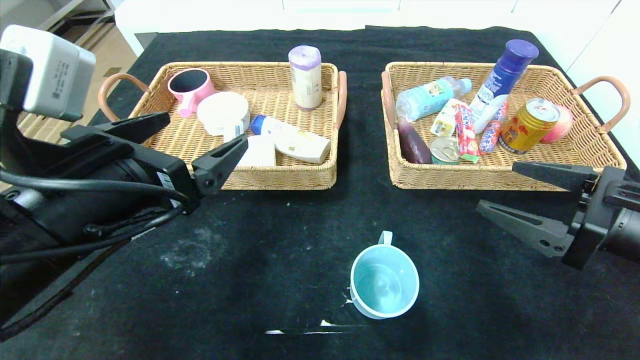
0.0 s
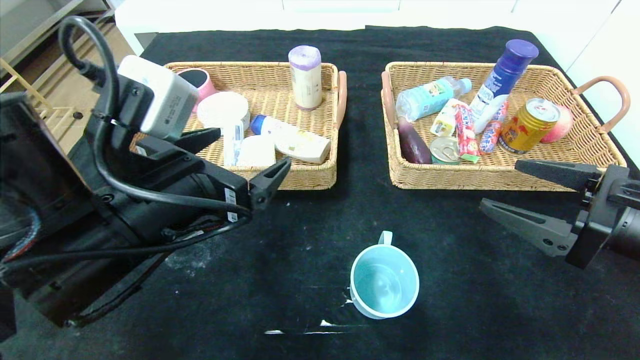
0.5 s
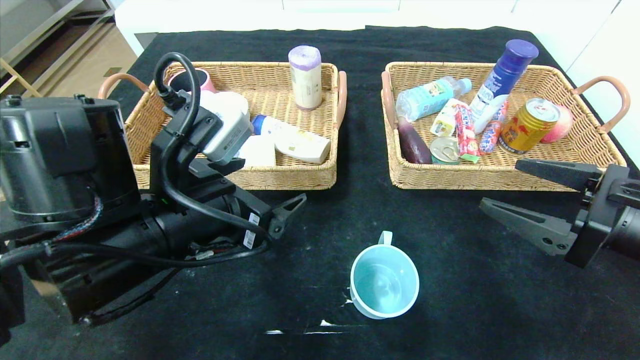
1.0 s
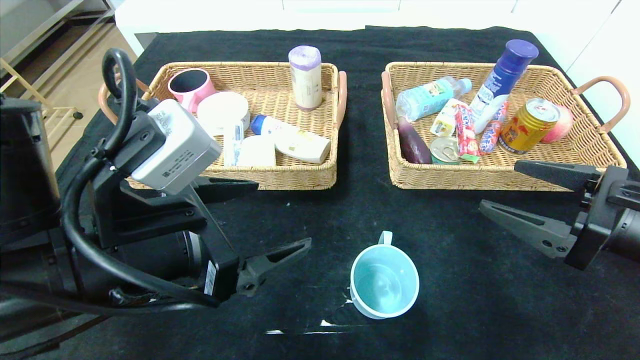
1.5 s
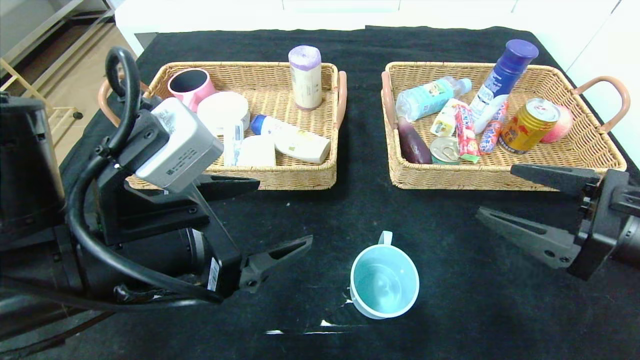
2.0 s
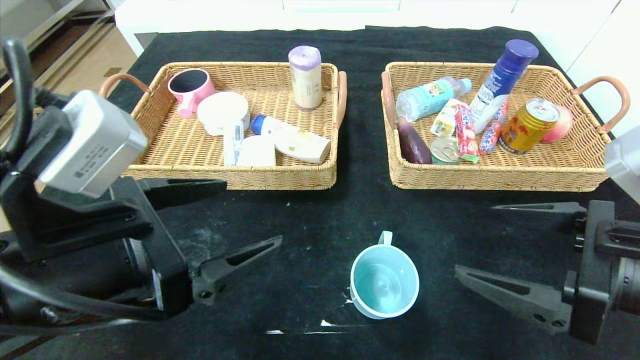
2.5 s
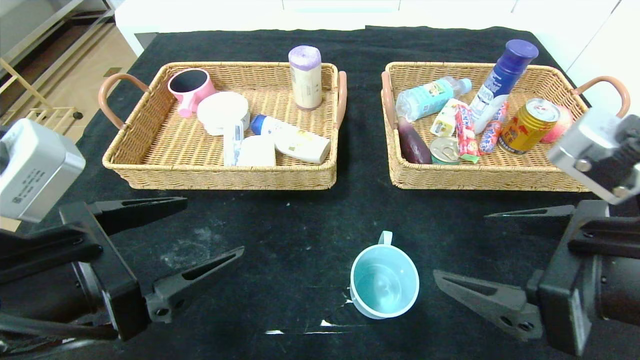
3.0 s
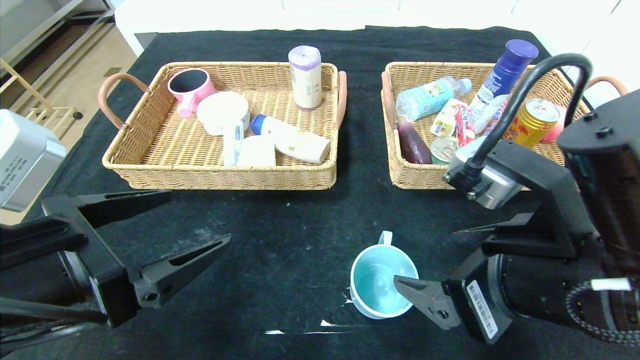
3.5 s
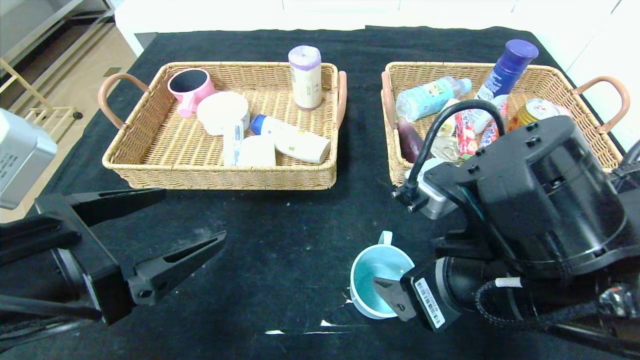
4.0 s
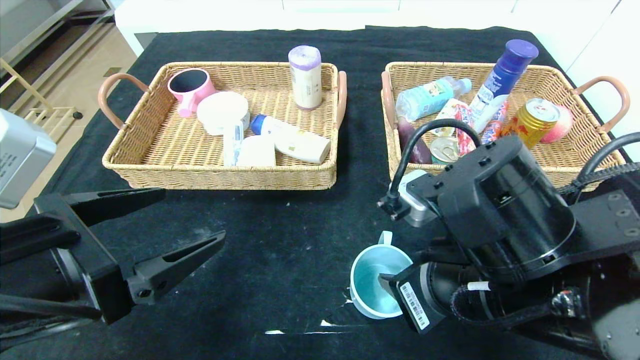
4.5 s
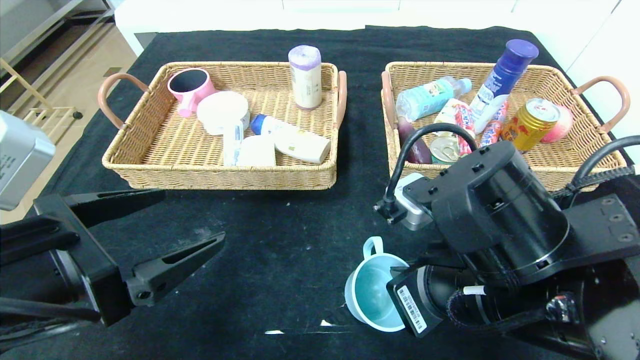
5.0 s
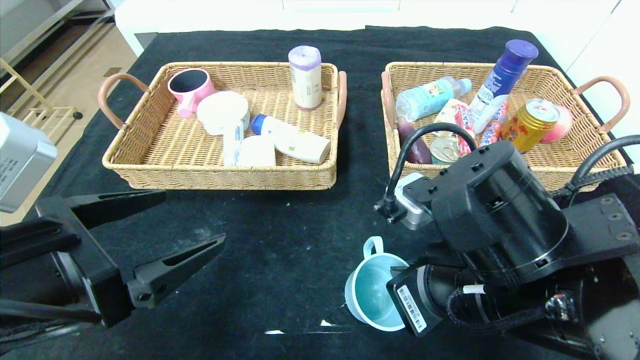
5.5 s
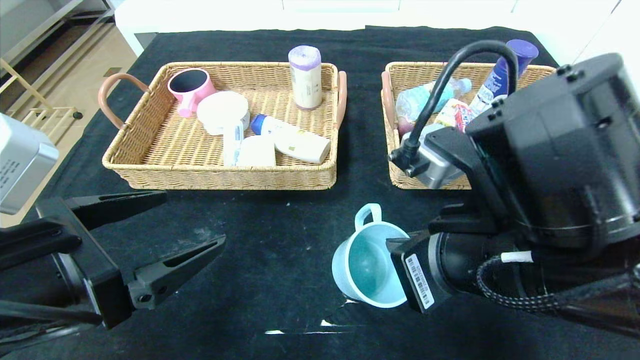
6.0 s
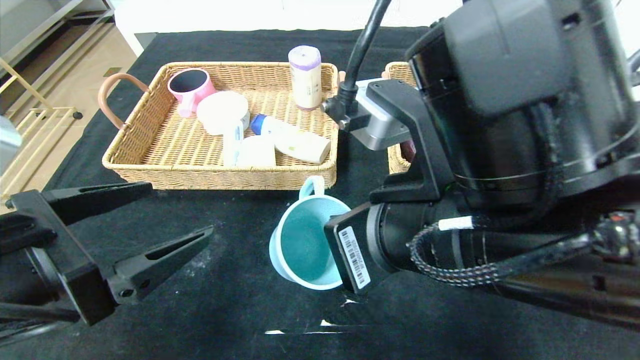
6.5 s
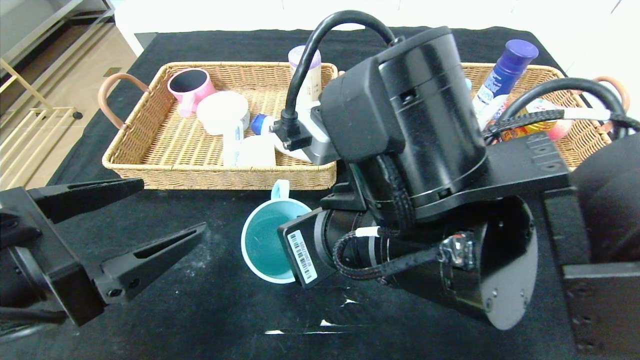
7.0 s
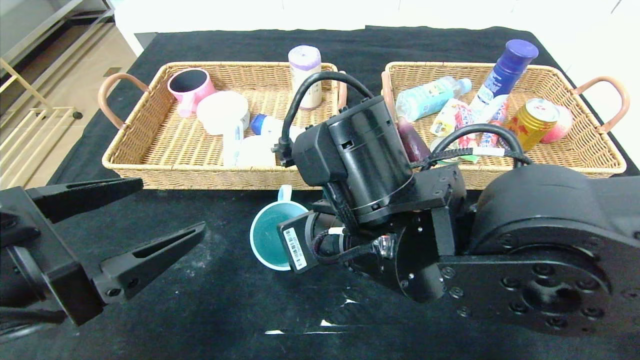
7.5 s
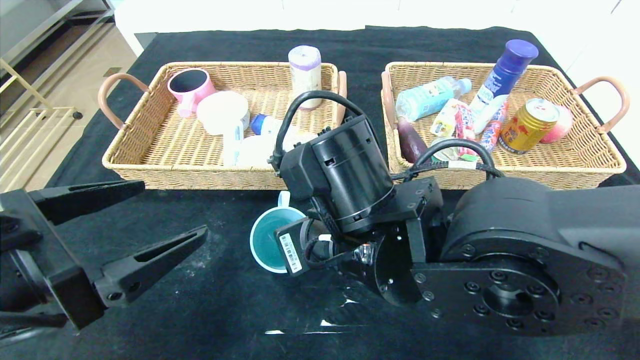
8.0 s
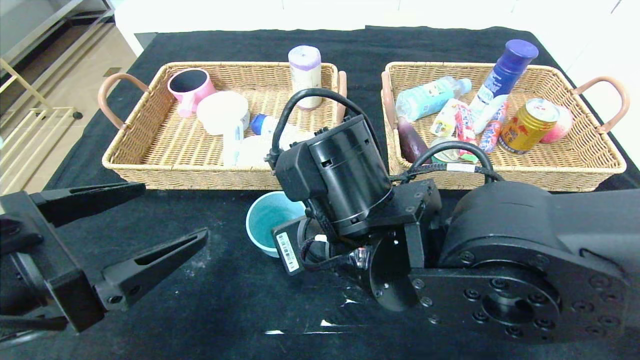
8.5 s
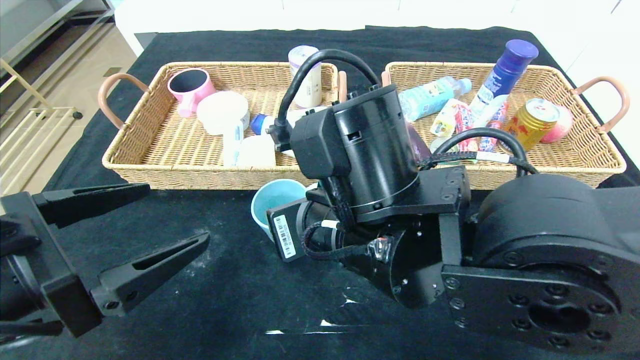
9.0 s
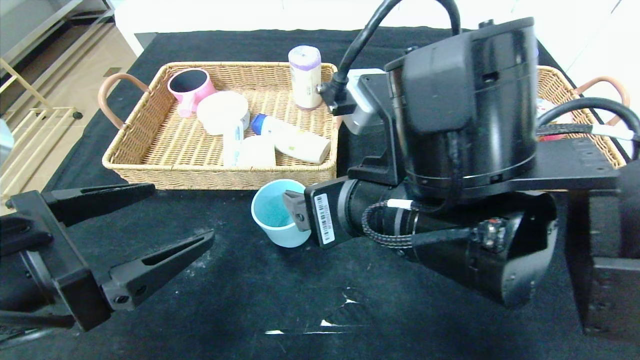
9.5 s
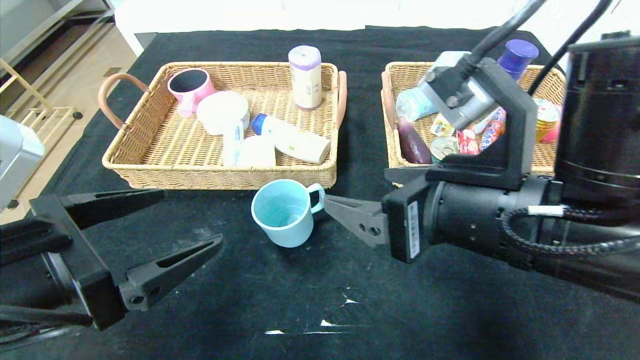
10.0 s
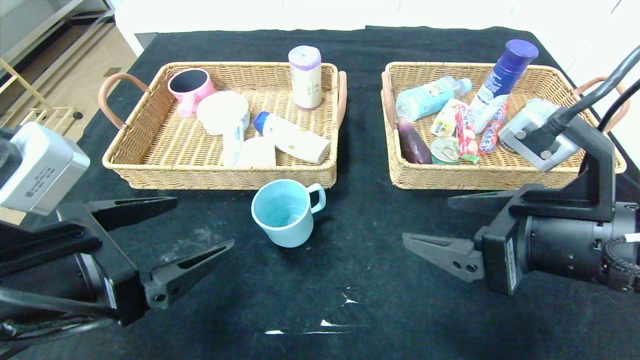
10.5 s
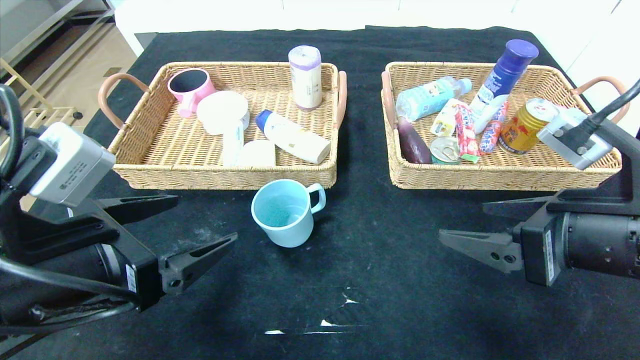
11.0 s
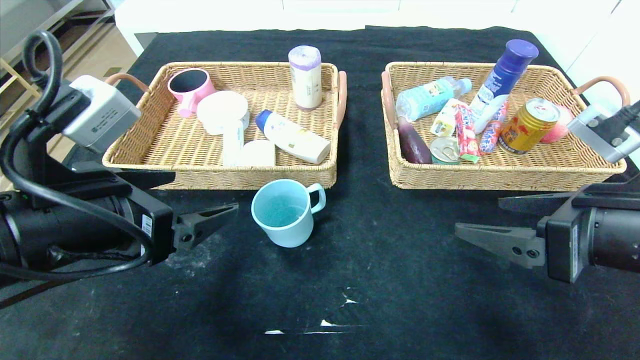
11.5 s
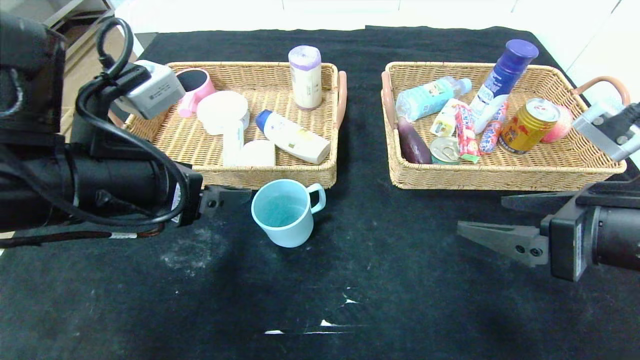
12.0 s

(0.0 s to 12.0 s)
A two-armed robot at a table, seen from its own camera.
Step, 0.0 s - 9.0 s: Place the blue cup in the center of the table.
2.0 s - 4.0 s: The right gripper is displaced to the left by approximately 15 cm; the left gripper travels to the left by roughly 5 cm.
4.0 s - 6.0 s: The right gripper closes its fingers.
6.0 s - 8.0 s: The right gripper moves to the left and forward, about 10 cm.
8.0 s - 10.0 s: The right gripper goes roughly 10 cm to the right, and opens up.
10.0 s - 12.0 s: The right gripper goes some 10 cm to the right, while the left gripper goes roughly 10 cm forward.

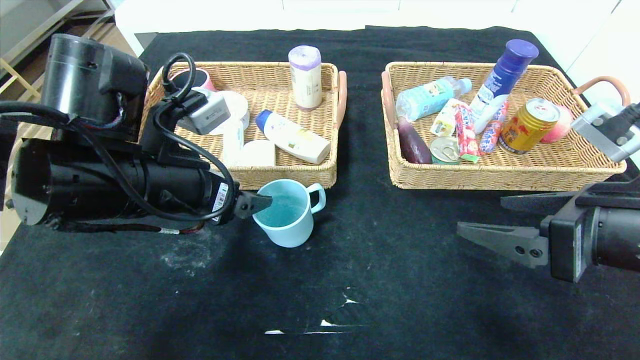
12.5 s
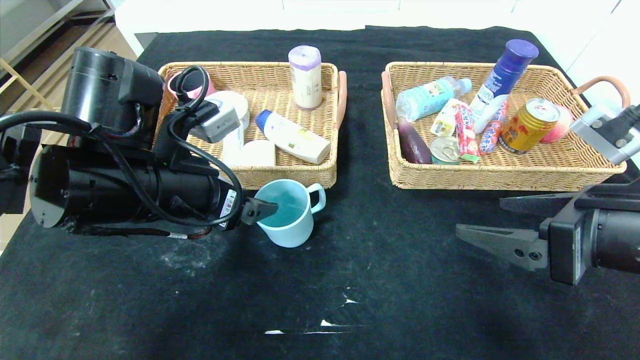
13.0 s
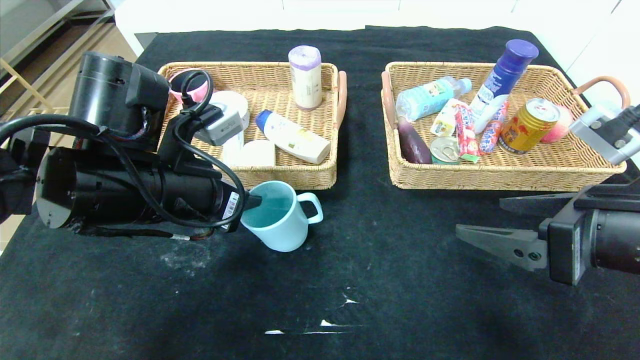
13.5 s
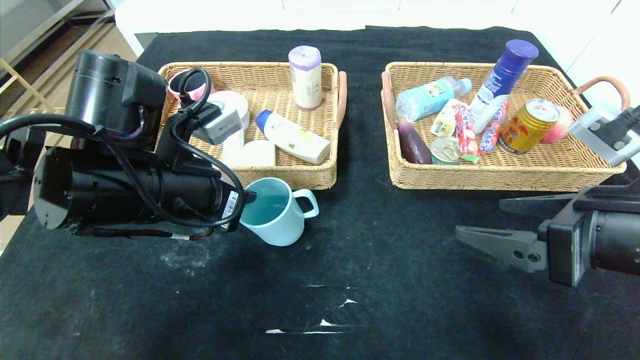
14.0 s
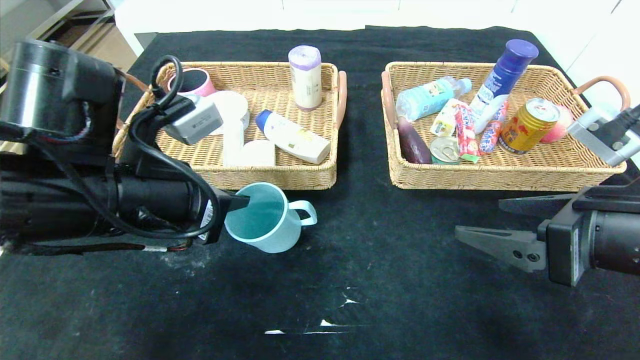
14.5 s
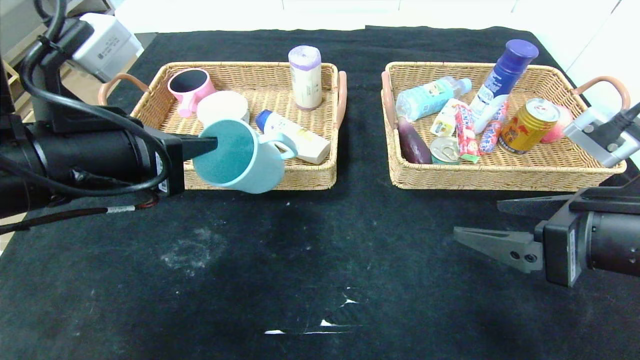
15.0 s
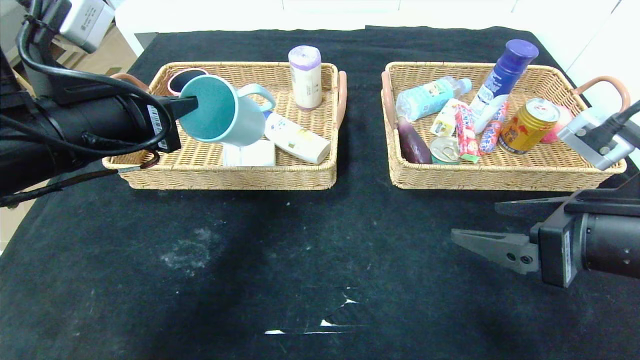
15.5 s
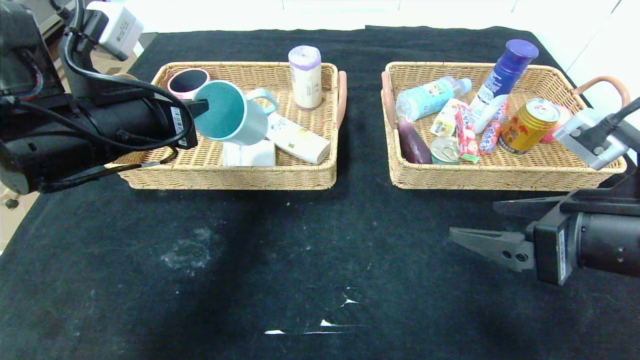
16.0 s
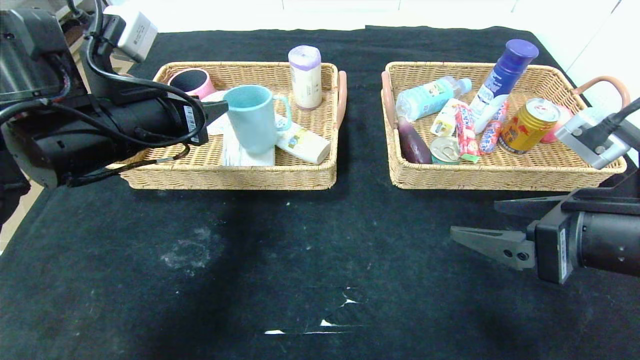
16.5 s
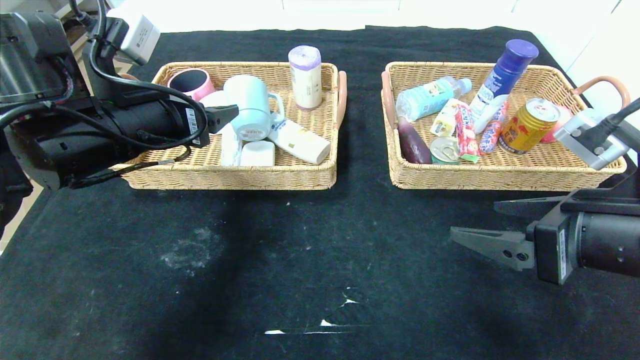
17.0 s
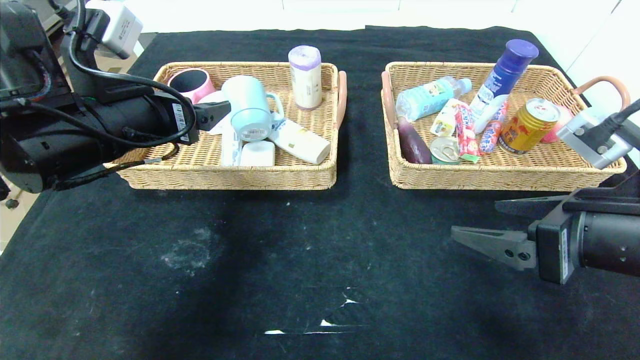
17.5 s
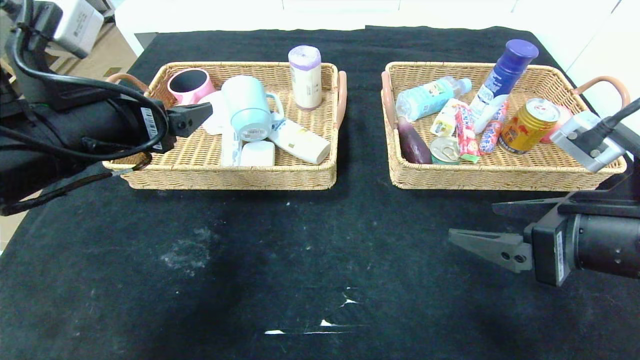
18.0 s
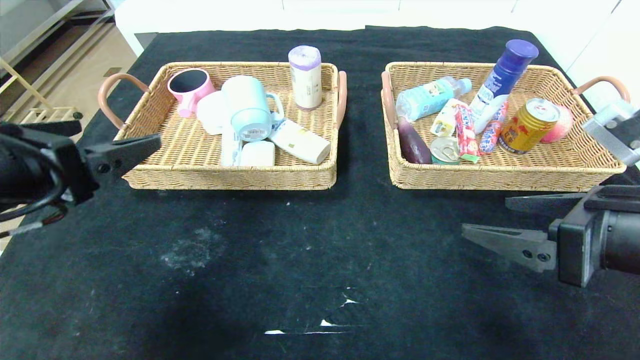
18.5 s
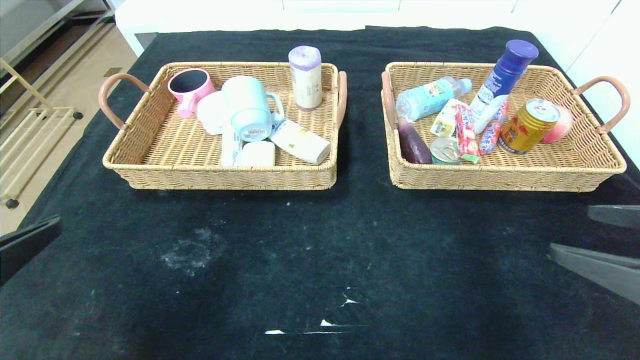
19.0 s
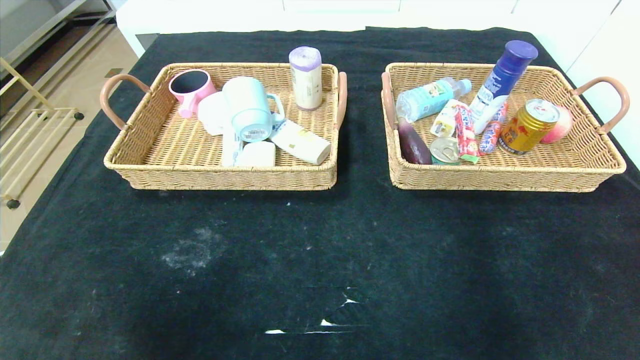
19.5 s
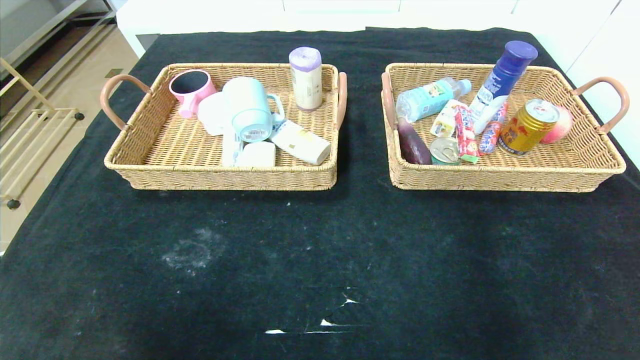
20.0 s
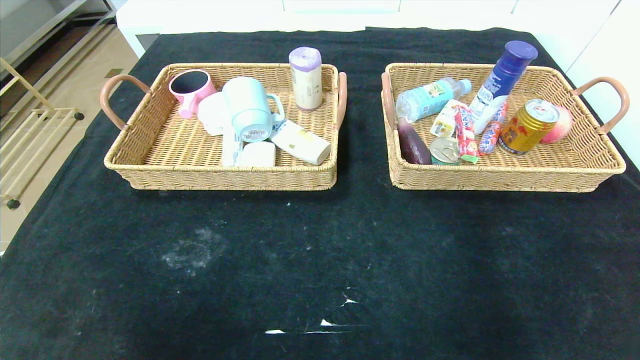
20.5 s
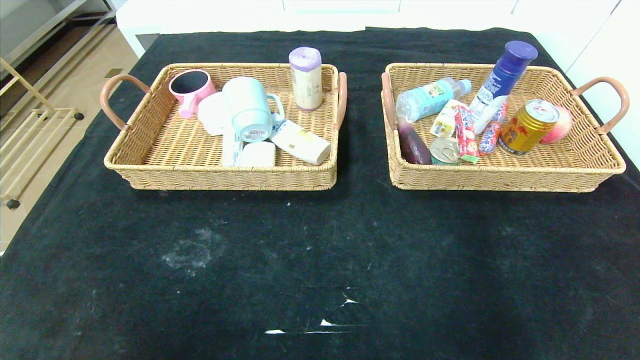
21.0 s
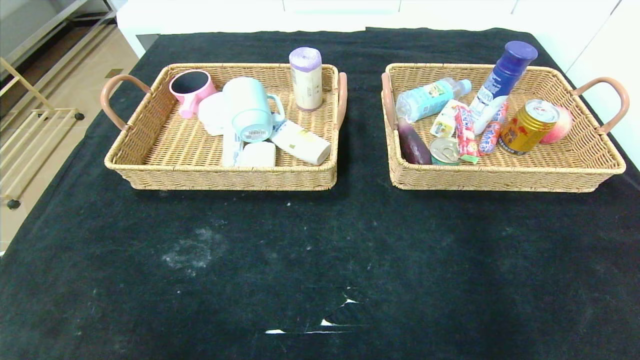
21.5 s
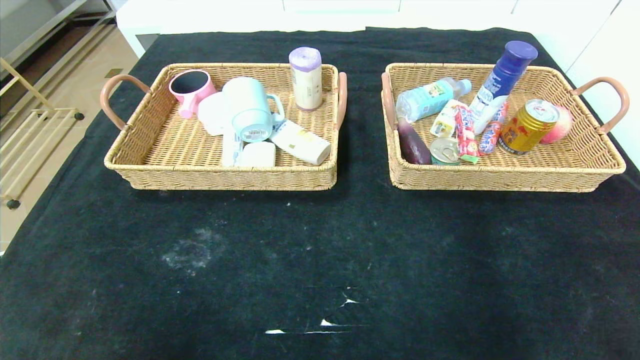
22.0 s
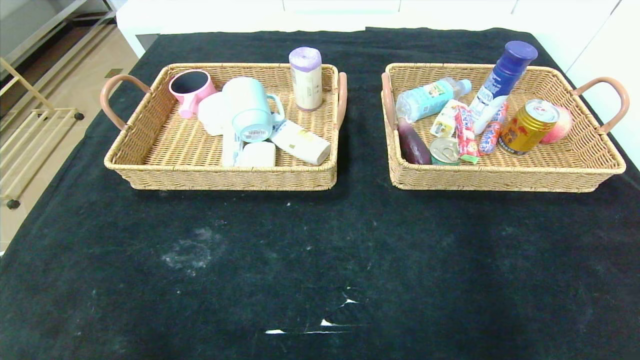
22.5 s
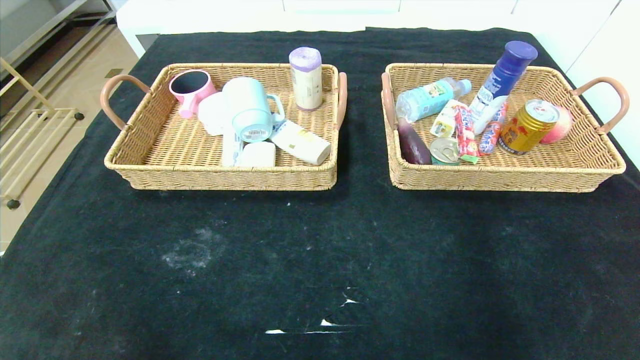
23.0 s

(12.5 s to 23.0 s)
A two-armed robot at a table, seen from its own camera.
Step, 12.5 s - 17.0 s: Grasp the blue cup and put it in the left basket.
12.5 s - 14.5 s: The left gripper closes.
14.5 s - 16.5 s: The left gripper goes some 5 cm forward, and opens up.
16.5 s - 19.0 s: The right gripper moves backward and to the right, about 10 cm. Meanwhile the left gripper is displaced backward by some 20 cm, and opens its fingers.
19.0 s - 21.0 s: The left gripper travels backward and downward by about 20 cm. Meanwhile the right gripper heads backward, covering approximately 20 cm.
